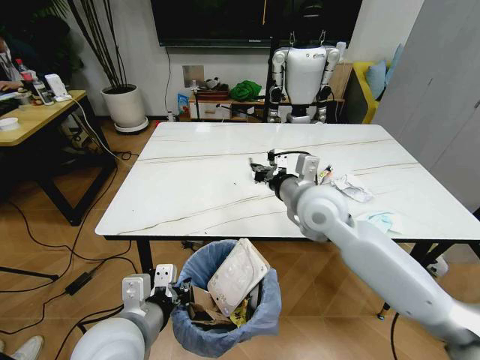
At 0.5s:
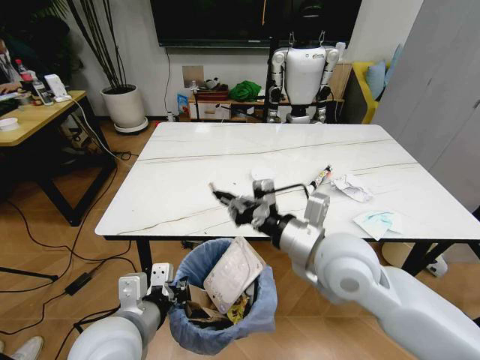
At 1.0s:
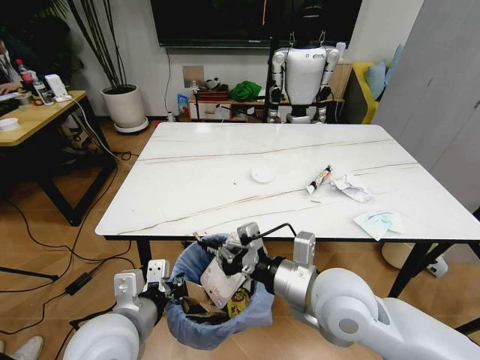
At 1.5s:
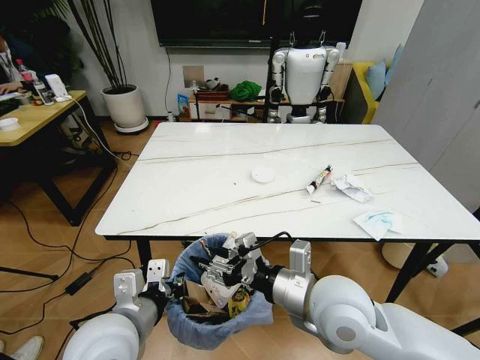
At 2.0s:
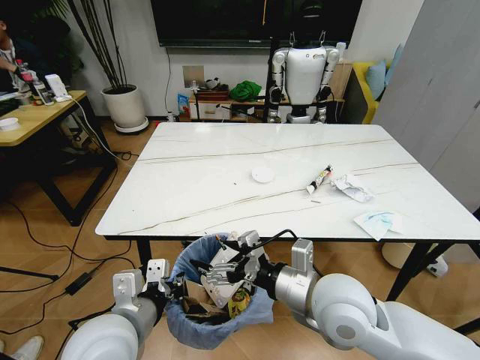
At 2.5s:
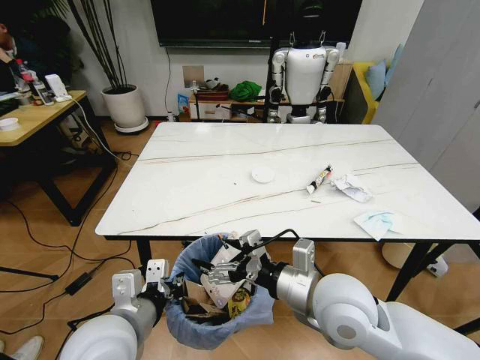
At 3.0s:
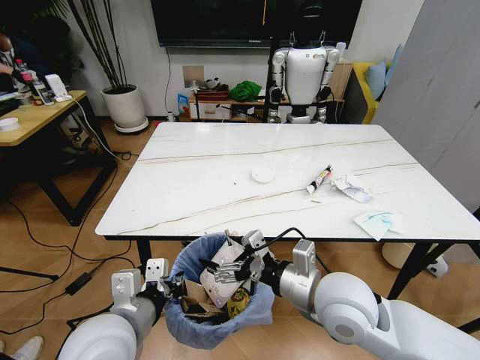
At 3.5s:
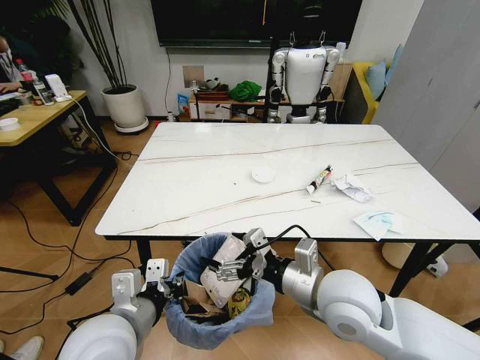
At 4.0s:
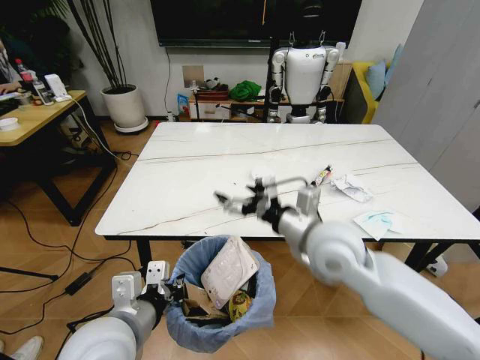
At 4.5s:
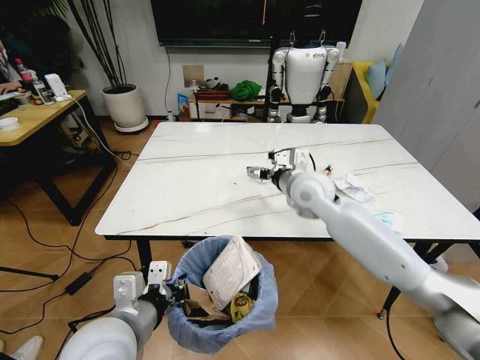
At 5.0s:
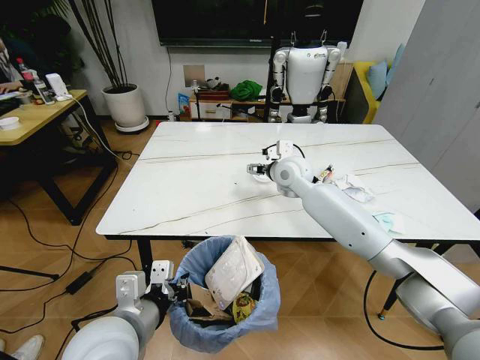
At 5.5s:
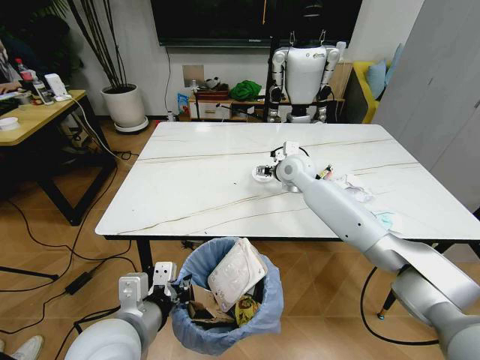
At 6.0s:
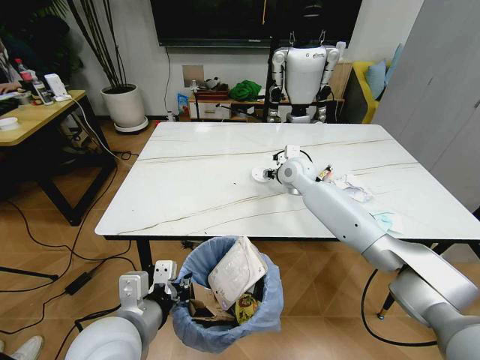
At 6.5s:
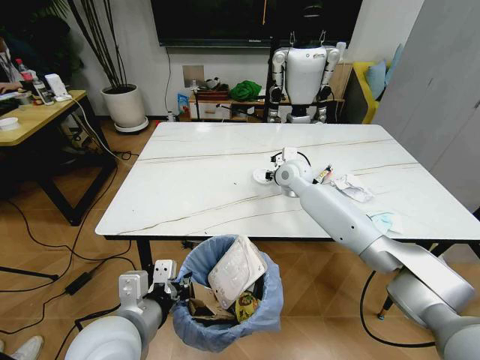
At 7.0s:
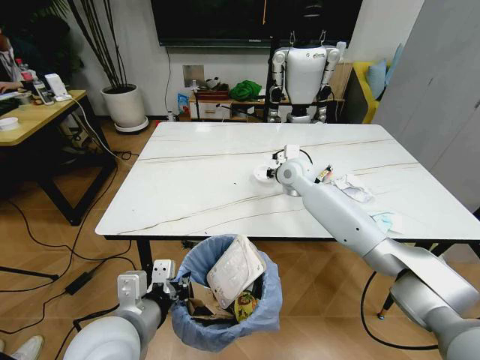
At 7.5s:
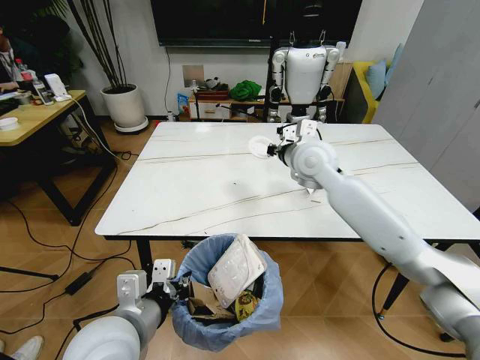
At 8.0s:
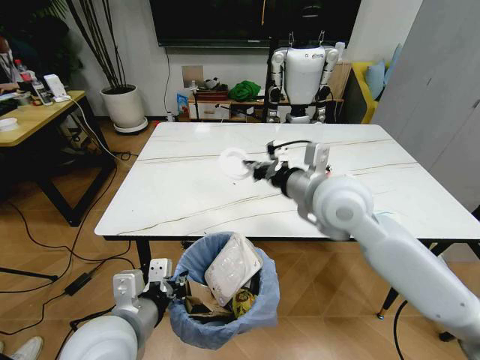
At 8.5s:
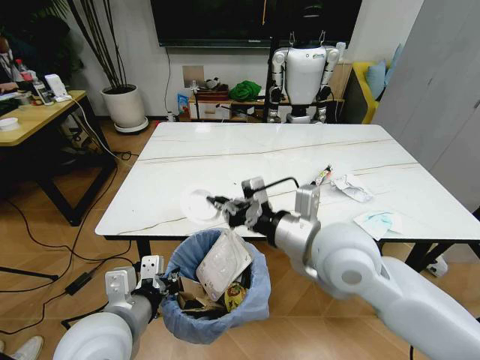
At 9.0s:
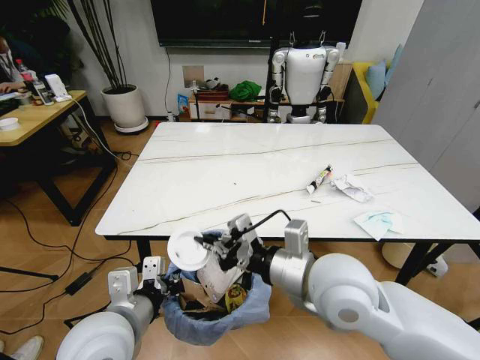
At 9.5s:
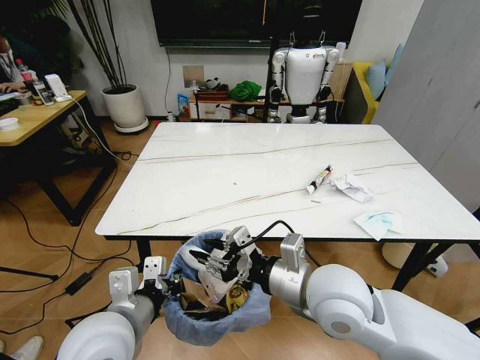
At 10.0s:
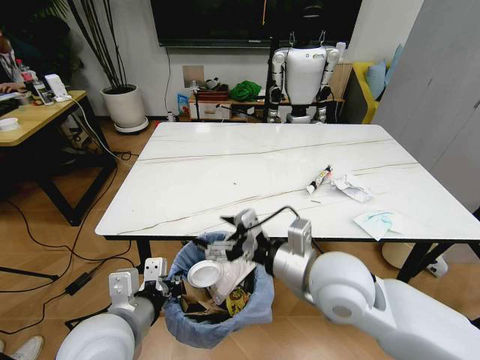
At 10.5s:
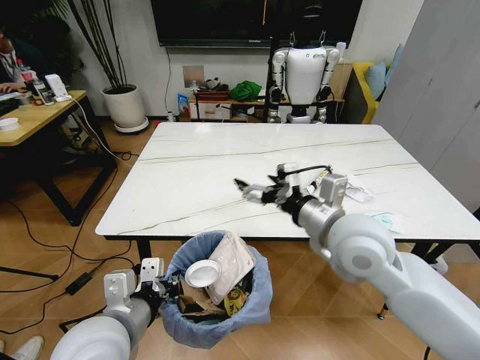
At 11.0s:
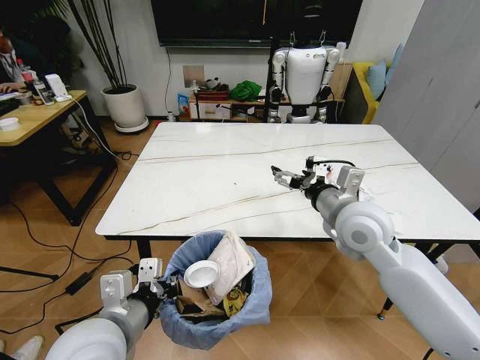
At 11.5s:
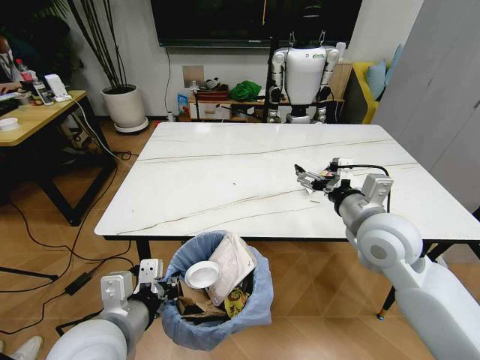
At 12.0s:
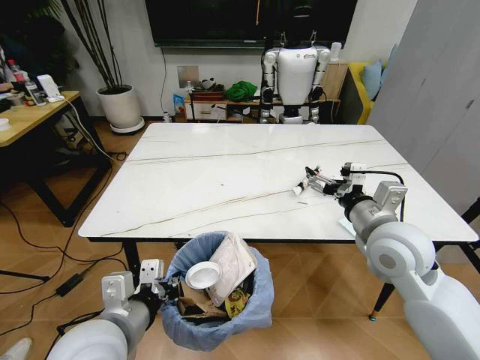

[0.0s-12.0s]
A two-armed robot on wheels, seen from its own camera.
Task of the whole recording: Pick up the trash bin and place the trash from the table into it.
0.0s to 2.0s: The right gripper travels backward by roughly 15 cm, and opens its fingers.
2.0s to 4.0s: The right gripper goes about 10 cm forward.
4.0s to 6.0s: The right gripper goes approximately 25 cm forward, and closes its fingers.
6.0s to 8.0s: The right gripper goes about 25 cm backward and upward, and closes its fingers.
8.0s to 10.0s: The right gripper goes roughly 10 cm backward and downward, and opens.
10.0s to 12.0s: The right gripper heads to the right and forward, covering approximately 15 cm.

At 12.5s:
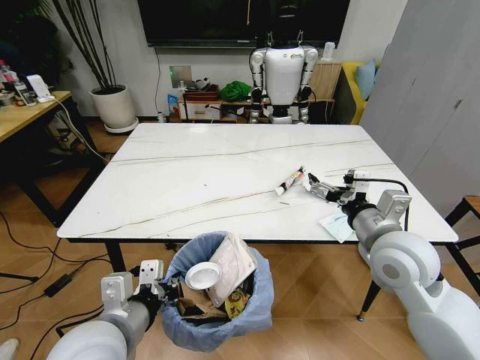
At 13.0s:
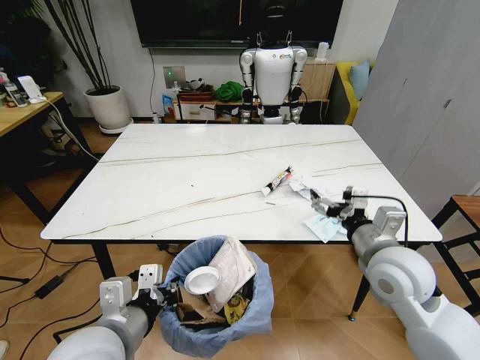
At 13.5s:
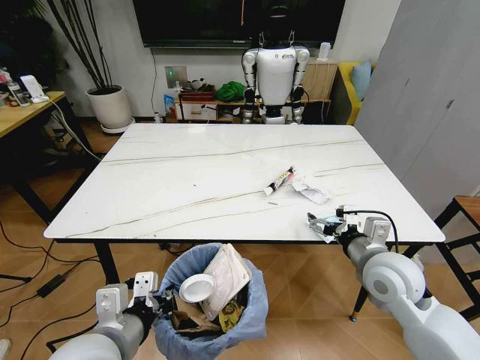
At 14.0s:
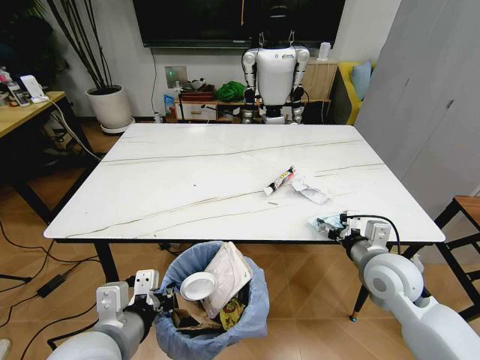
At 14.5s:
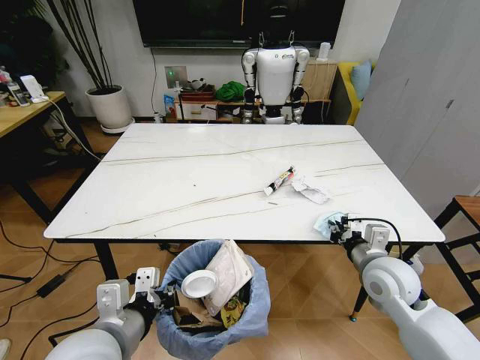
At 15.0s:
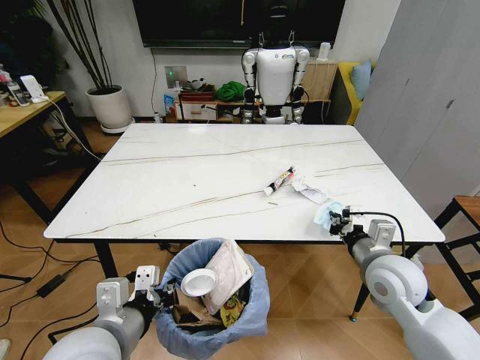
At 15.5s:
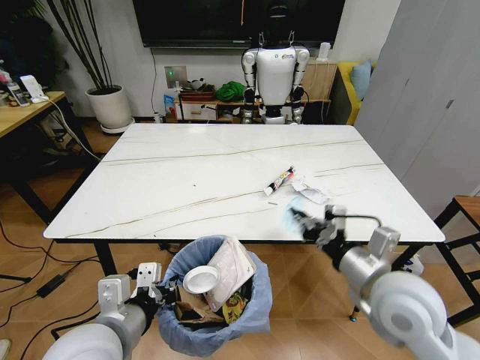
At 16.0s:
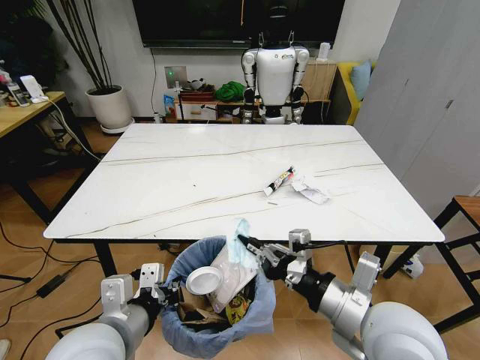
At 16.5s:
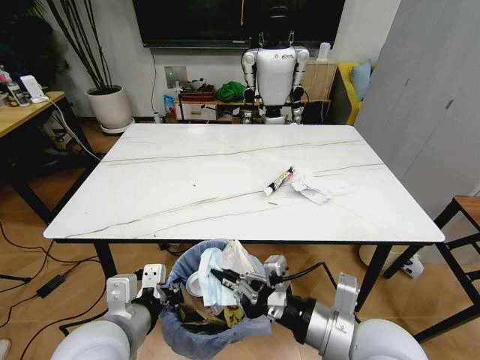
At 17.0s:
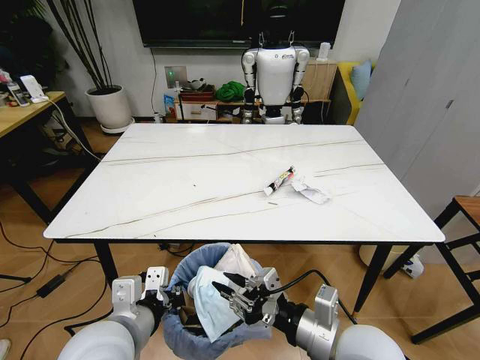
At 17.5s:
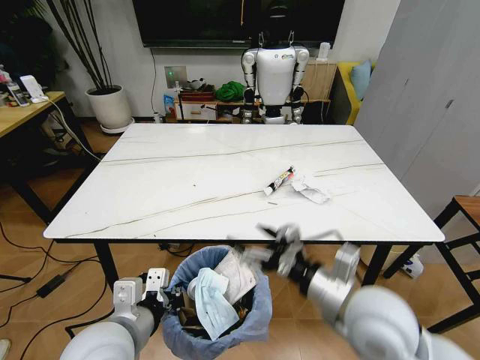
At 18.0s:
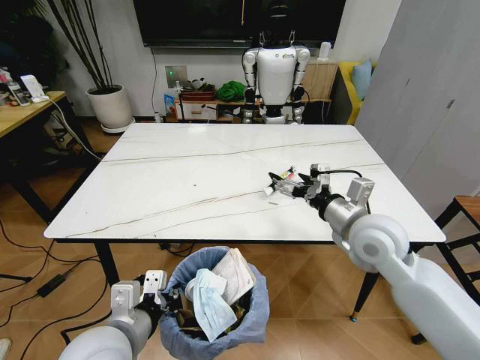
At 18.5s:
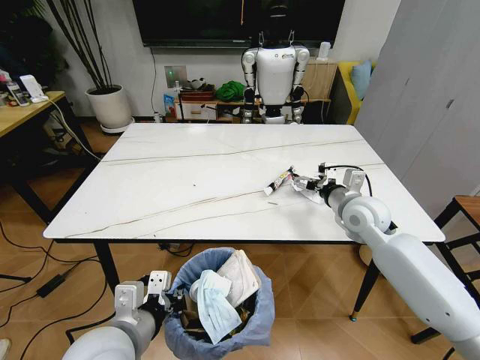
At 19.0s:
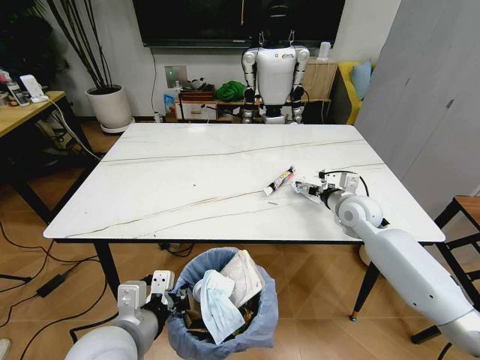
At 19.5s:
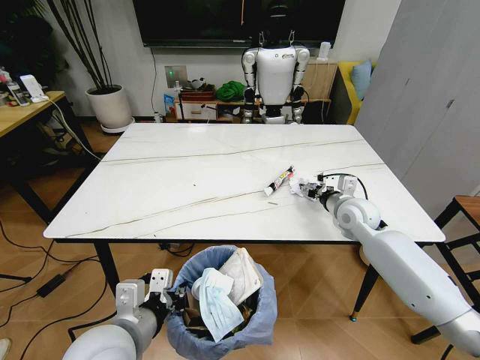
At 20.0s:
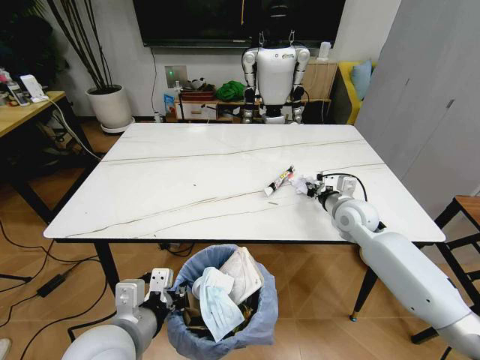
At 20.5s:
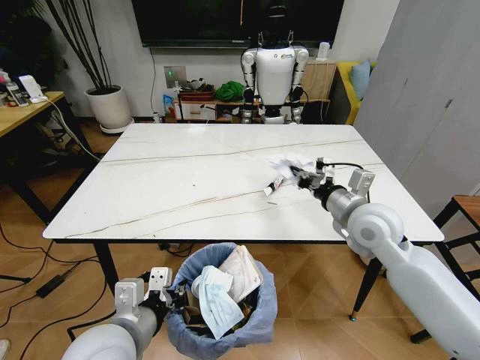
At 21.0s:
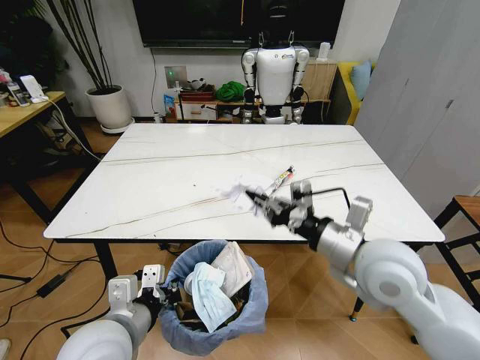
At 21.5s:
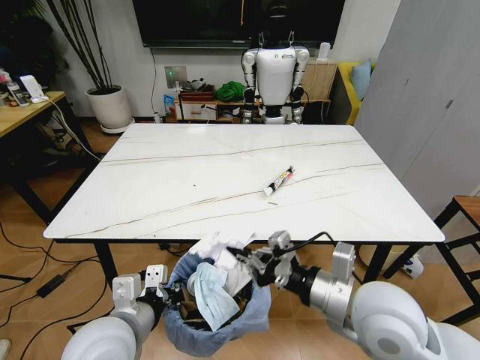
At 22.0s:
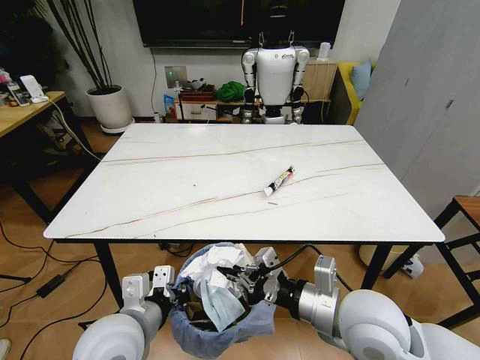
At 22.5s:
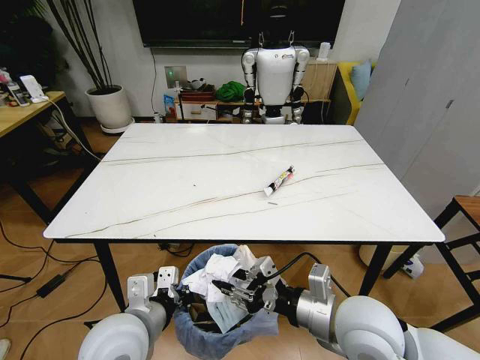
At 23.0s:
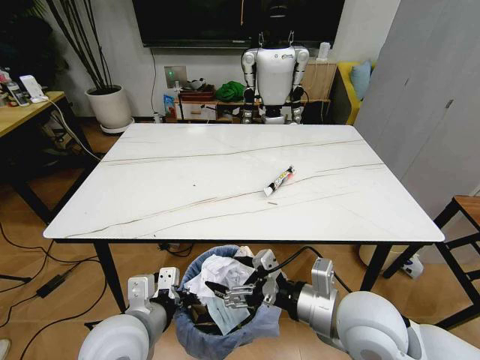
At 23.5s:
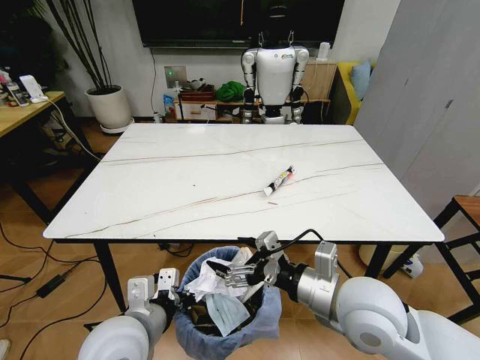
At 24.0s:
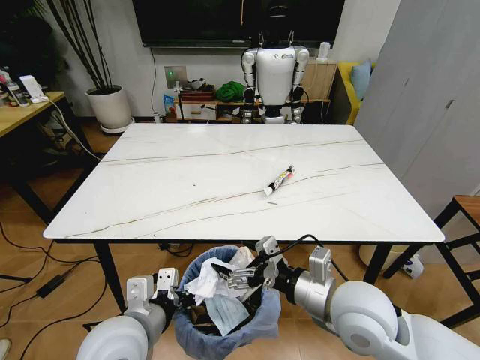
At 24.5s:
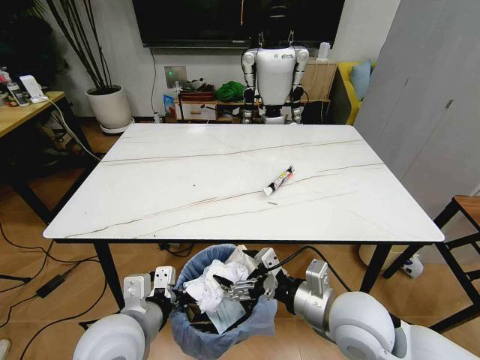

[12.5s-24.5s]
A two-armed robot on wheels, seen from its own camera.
Task of the whole recording: Pick up the trash bin and place the trash from the table into it.
12.5s to 14.5s: The right gripper shifts about 10 cm downward, and closes up.
14.5s to 16.5s: The right gripper goes approximately 20 cm backward, to the left and upward.
16.5s to 18.5s: The right gripper is displaced forward by roughly 25 cm, and opens its fingers.
18.5s to 20.5s: The right gripper goes roughly 5 cm backward, and closes up.
20.5s to 22.5s: The right gripper is displaced backward and to the left by approximately 20 cm, and opens up.
22.5s to 24.5s: The right gripper opens its fingers.

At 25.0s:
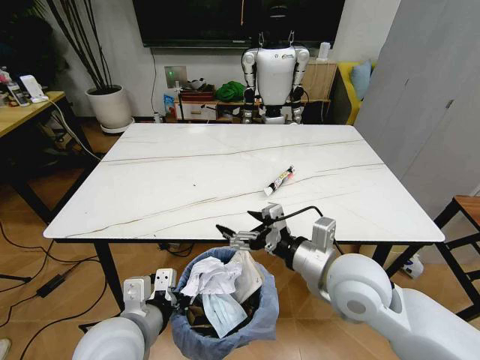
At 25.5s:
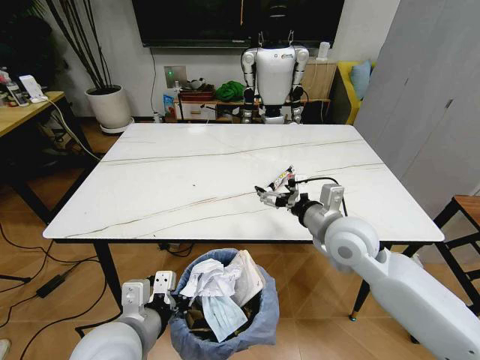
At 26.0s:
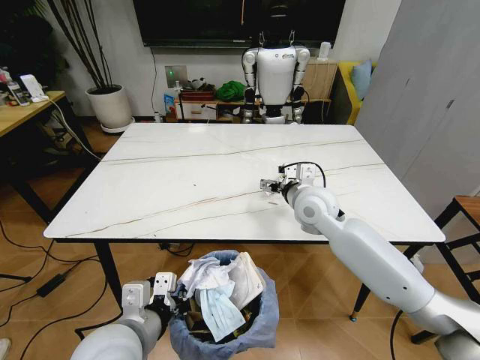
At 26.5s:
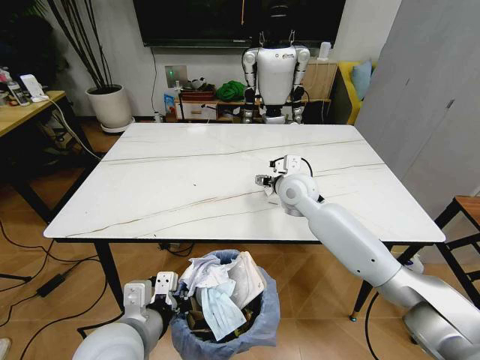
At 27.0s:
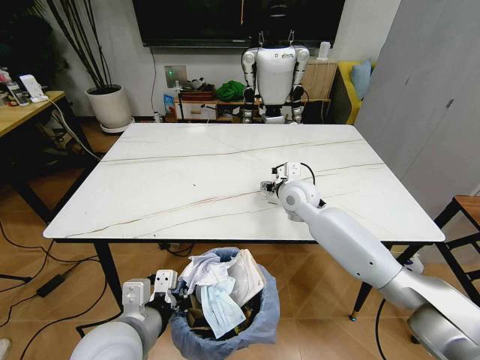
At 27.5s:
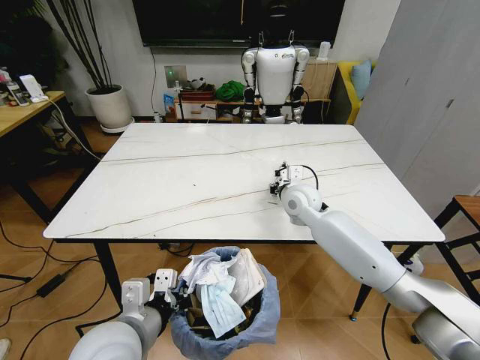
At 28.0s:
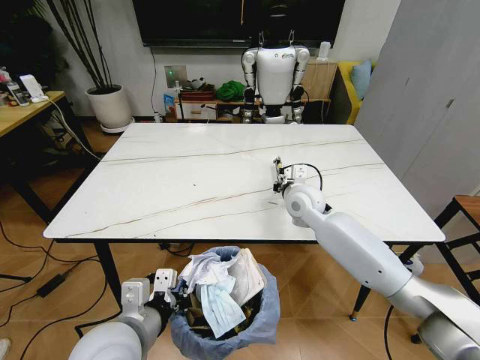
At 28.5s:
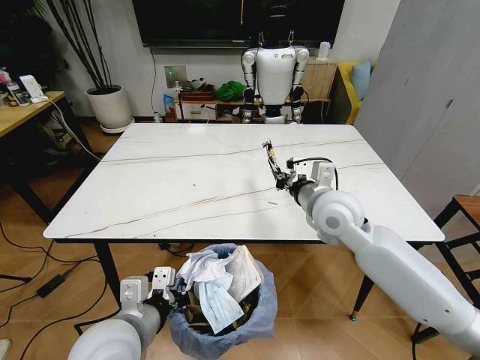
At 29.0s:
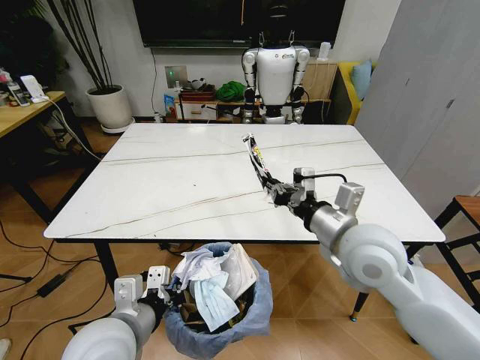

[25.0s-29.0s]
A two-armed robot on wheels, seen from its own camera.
Task of the whole recording: Pick up the trash bin and place the trash from the table into it.
25.0s to 27.0s: The right gripper goes roughly 25 cm forward.
27.0s to 29.0s: The right gripper heads backward and upward, covering approximately 25 cm, and closes up.
